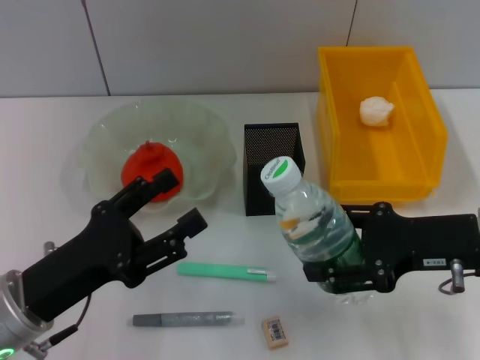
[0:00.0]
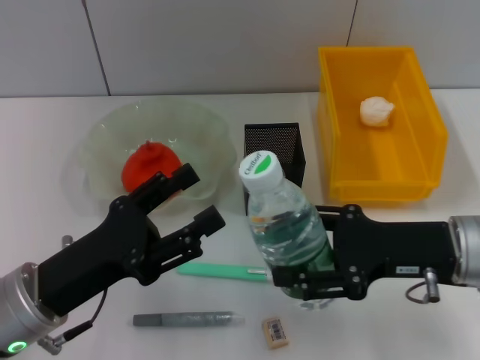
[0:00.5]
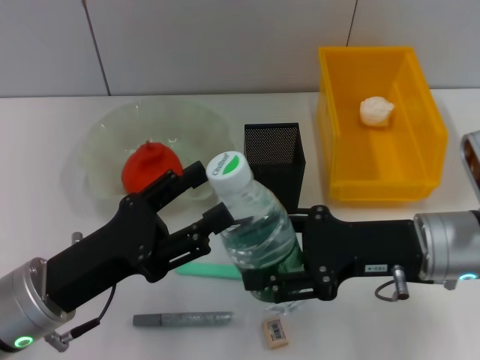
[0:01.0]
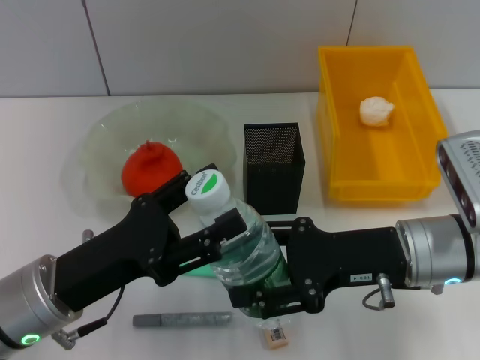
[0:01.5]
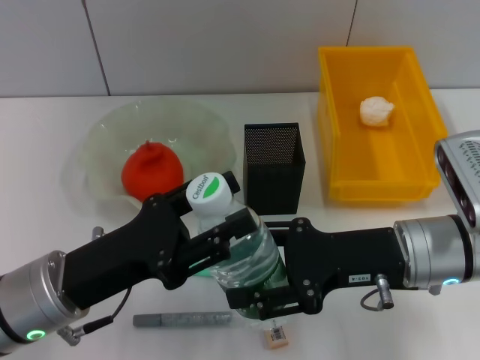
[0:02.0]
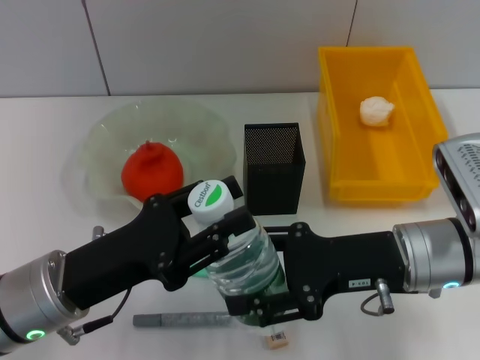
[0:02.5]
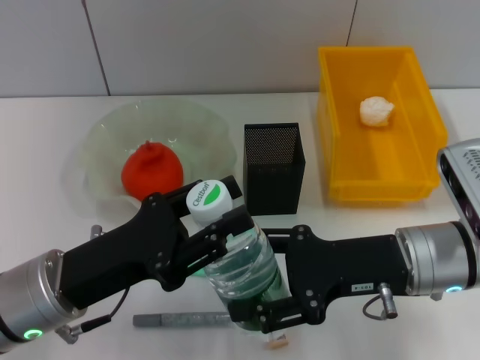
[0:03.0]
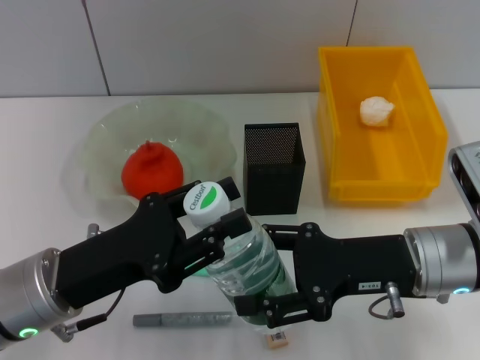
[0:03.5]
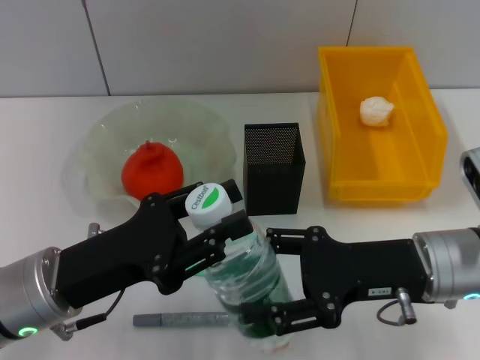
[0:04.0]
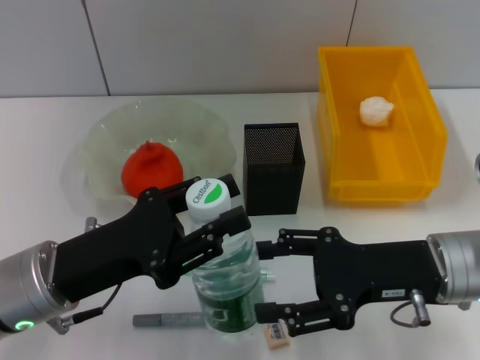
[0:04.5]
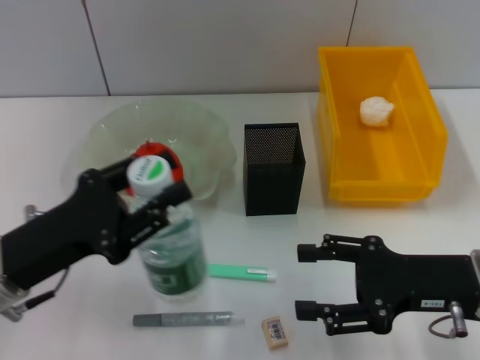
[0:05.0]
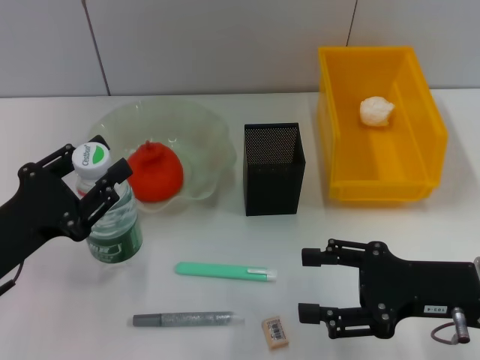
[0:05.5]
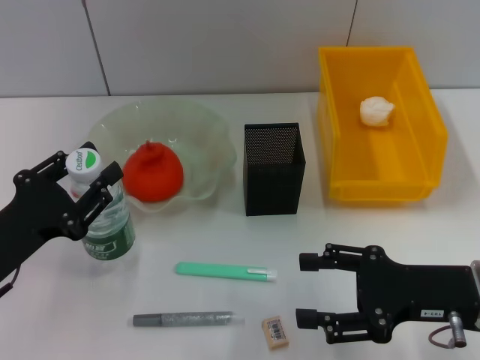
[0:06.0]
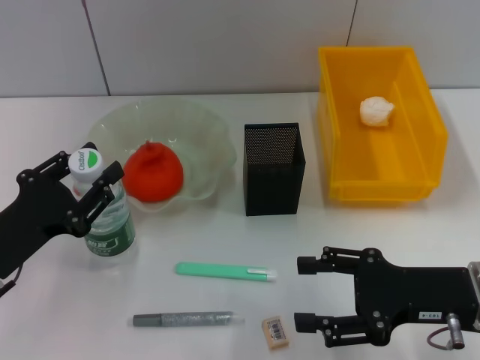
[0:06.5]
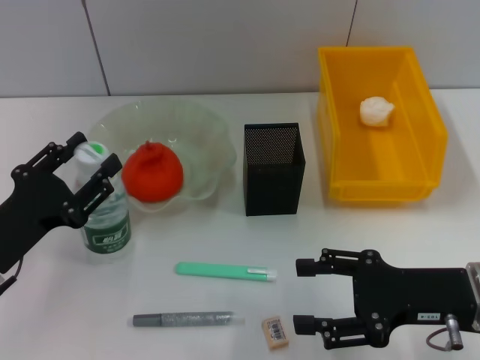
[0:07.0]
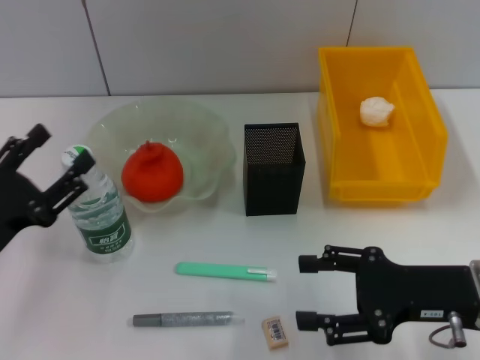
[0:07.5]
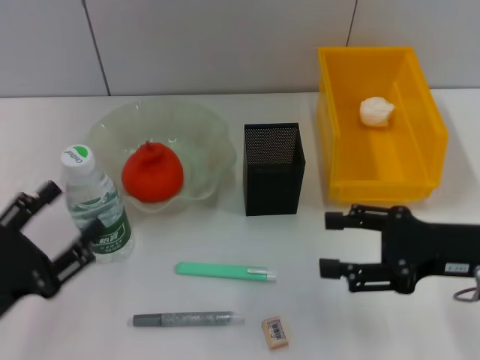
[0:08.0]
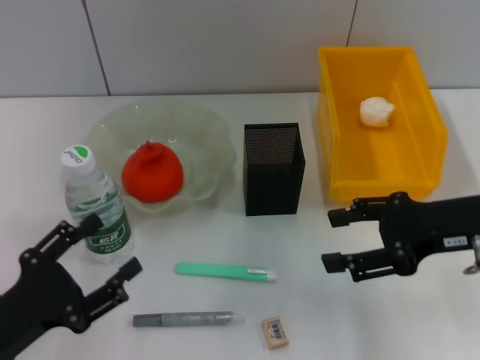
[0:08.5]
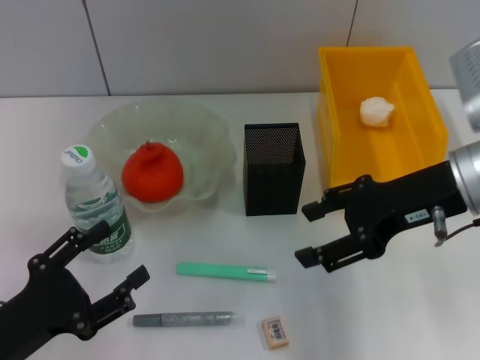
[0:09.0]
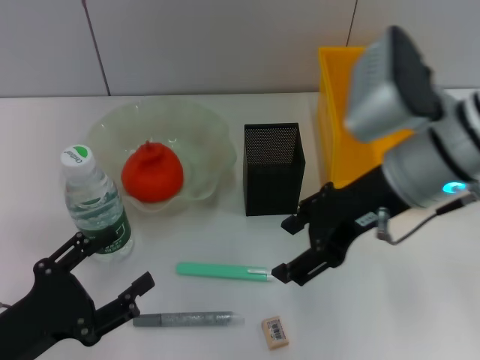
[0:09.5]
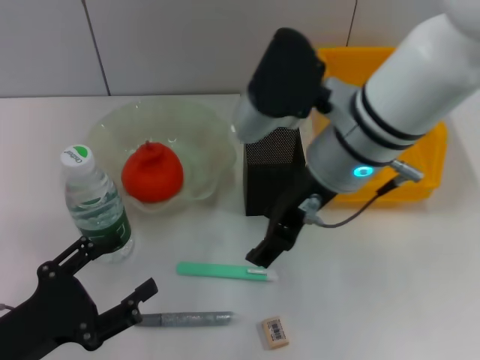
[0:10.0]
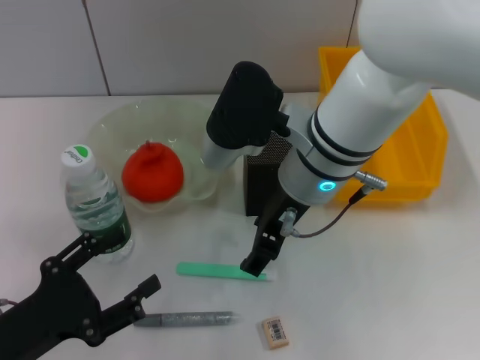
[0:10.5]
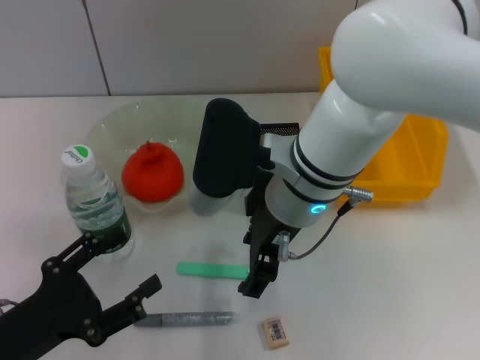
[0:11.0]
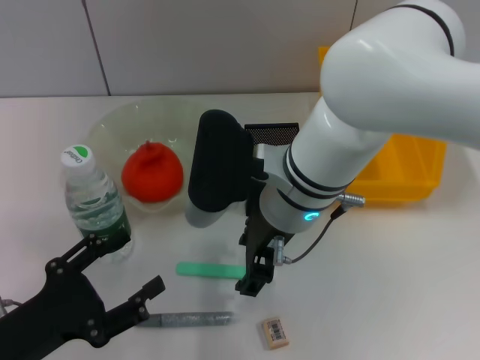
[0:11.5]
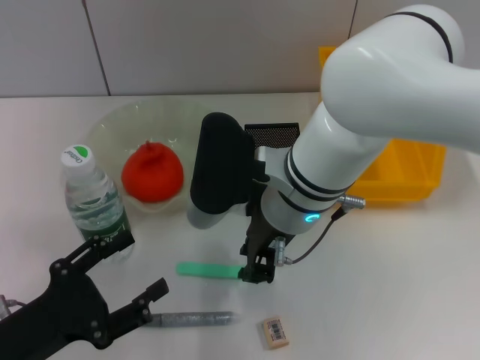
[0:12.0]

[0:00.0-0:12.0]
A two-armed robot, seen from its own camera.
Step, 0:00.0 to 0:04.5: Pass the water bottle from the right hand to the left hand.
Step, 0:05.0 to 0:07.5: Place the water bottle on the table with the left hand.
0:00.0 to 0:02.0: The right gripper travels to the left by about 5 cm.
0:02.0 to 0:04.0: The left gripper closes.
0:04.0 to 0:06.0: The left gripper moves to the left, approximately 10 cm; the right gripper shifts by about 5 cm.
0:06.0 to 0:08.0: The left gripper is displaced backward by some 5 cm, and opens up.
0:08.0 to 0:10.0: The right gripper goes some 20 cm to the left and upward.
0:10.0 to 0:12.0: The right gripper moves downward, approximately 5 cm, and closes its fingers.

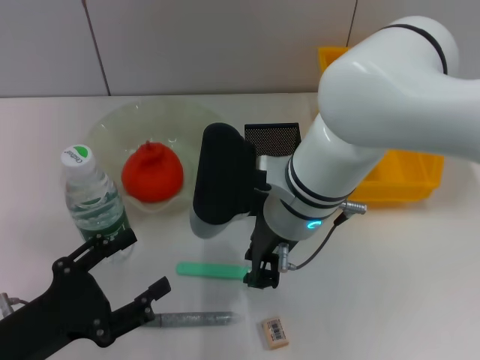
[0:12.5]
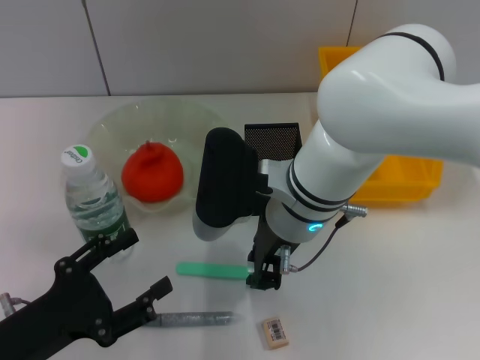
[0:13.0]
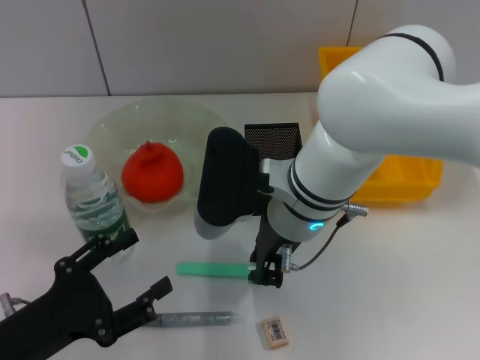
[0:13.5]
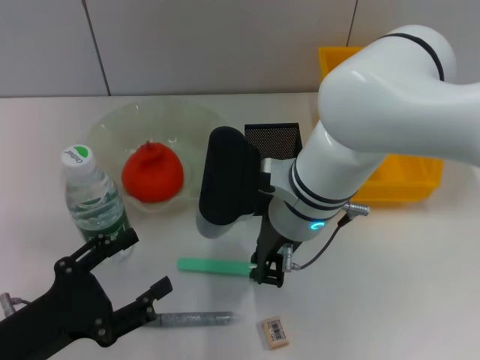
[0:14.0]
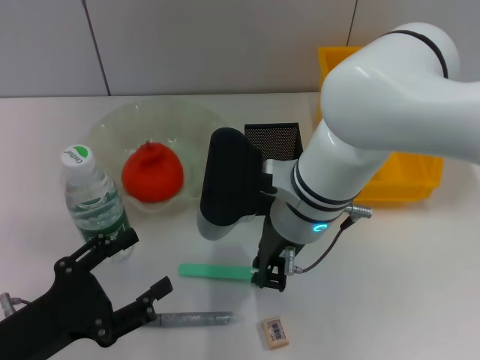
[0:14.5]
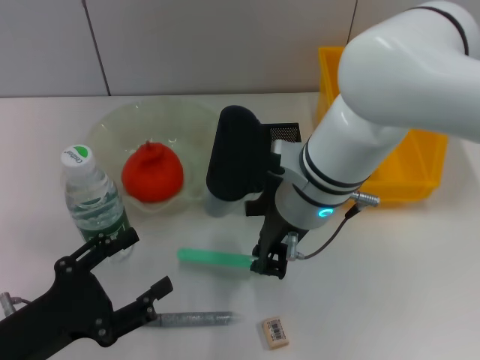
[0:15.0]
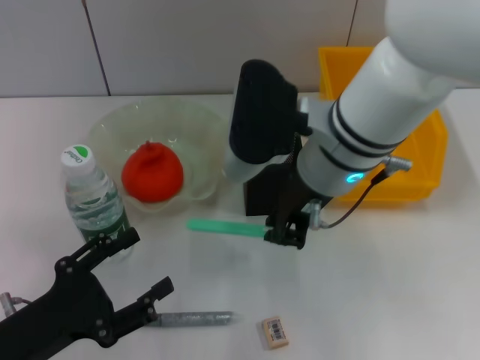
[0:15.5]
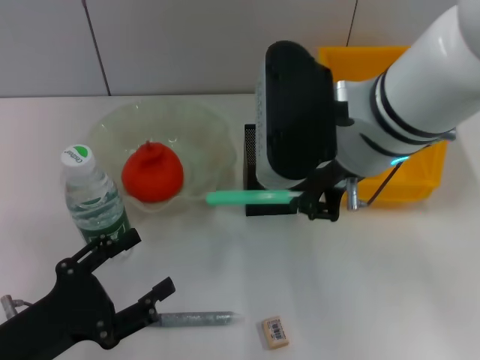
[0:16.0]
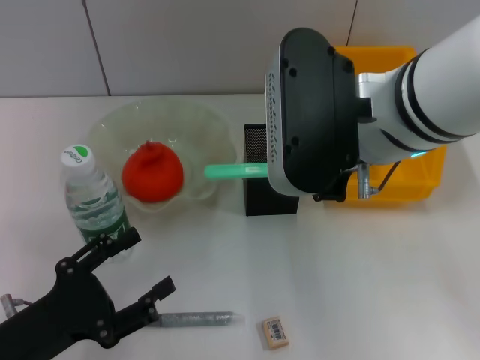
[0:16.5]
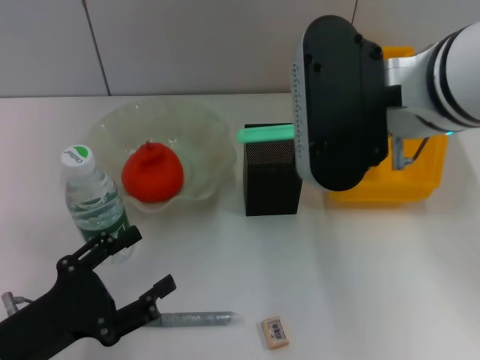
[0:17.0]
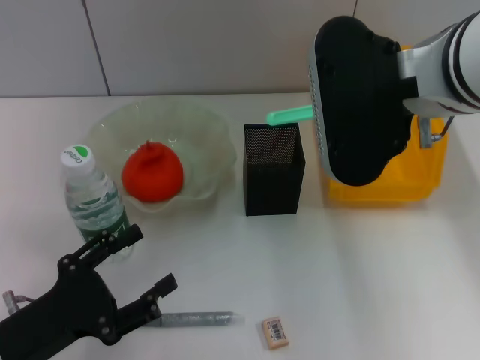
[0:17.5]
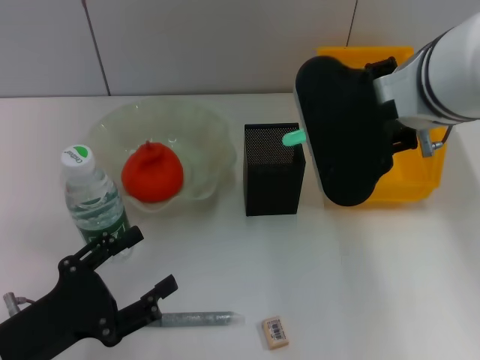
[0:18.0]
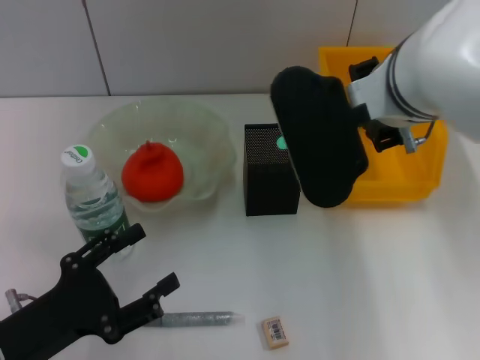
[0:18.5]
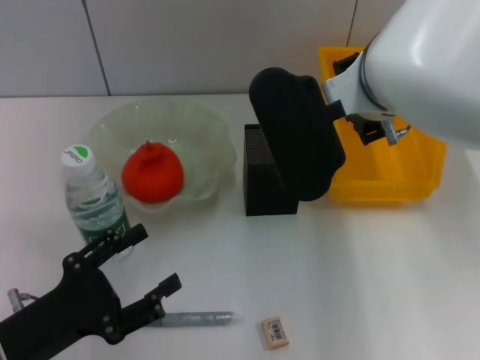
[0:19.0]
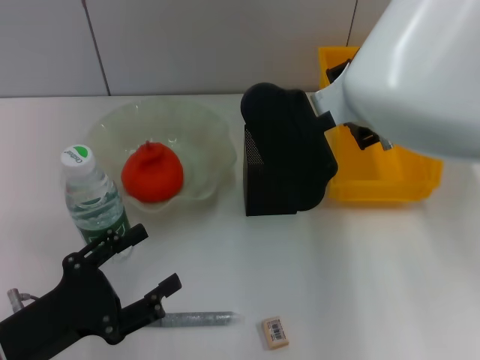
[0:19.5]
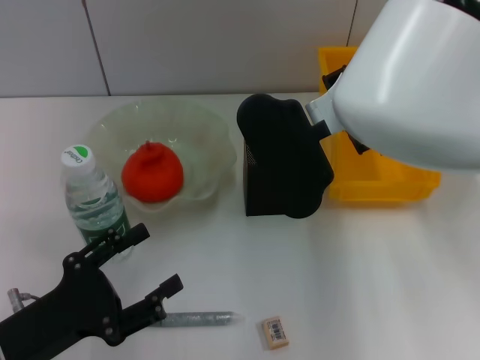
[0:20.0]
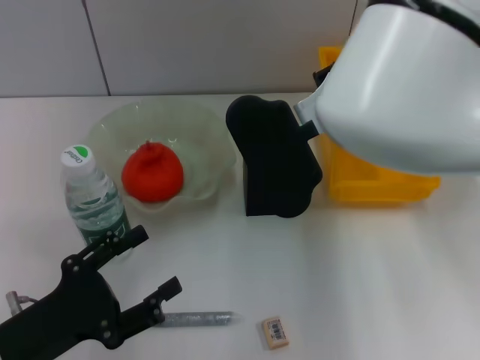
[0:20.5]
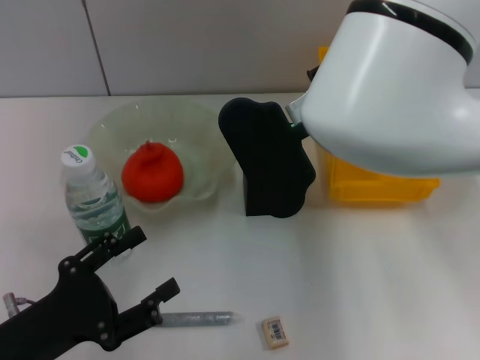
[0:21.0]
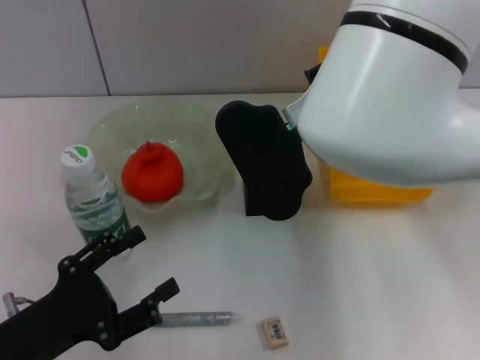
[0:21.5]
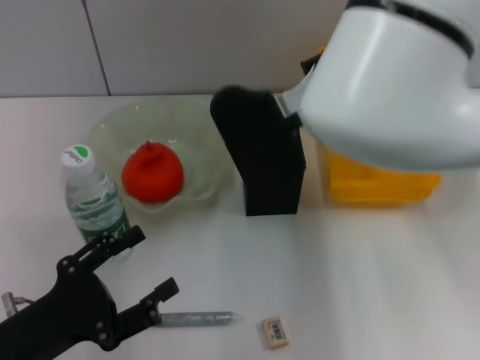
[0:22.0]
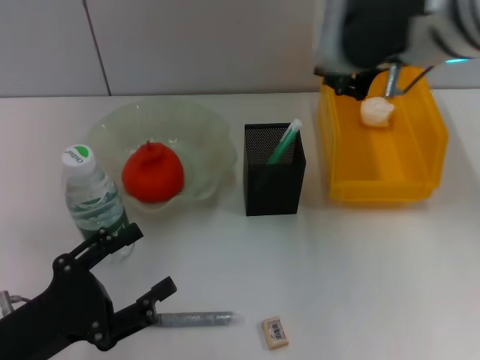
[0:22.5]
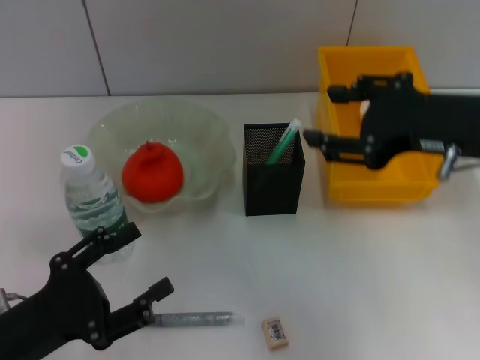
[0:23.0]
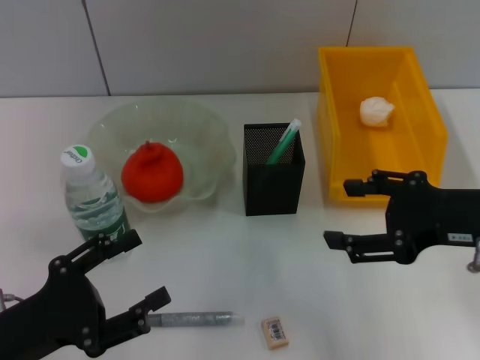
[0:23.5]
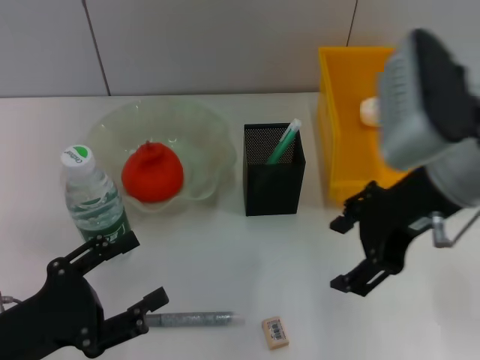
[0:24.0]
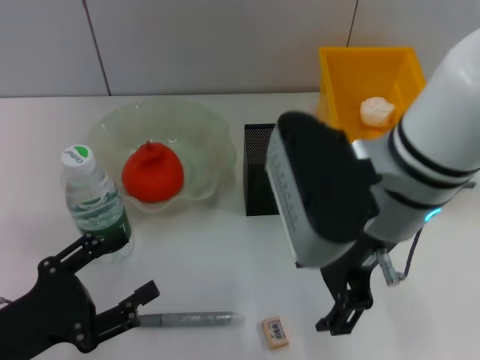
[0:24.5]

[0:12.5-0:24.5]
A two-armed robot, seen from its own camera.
Step, 0:14.0 to 0:22.0: Place the blue utility knife into the pen holder with the right hand.
0:12.5 to 0:14.5: The two grippers keep their place.
0:14.5 to 0:16.5: The right gripper moves upward, about 10 cm.
0:18.5 to 0:20.5: There are only small adjustments of the grippers.
0:20.5 to 0:22.5: The right gripper heads to the right and upward, covering approximately 10 cm.
0:22.5 to 0:24.5: The right gripper goes approximately 10 cm downward and backward, reaches about 10 cm to the right, then returns, and opens.

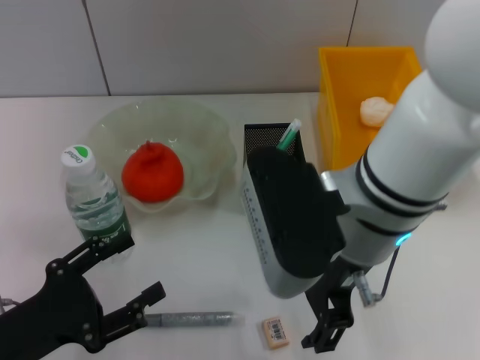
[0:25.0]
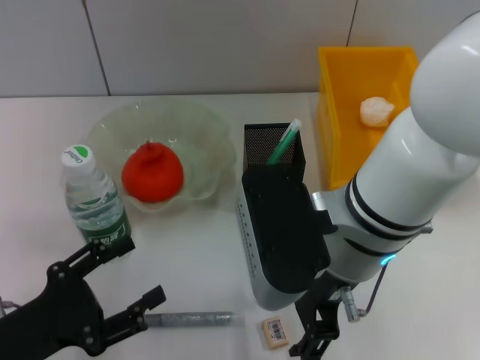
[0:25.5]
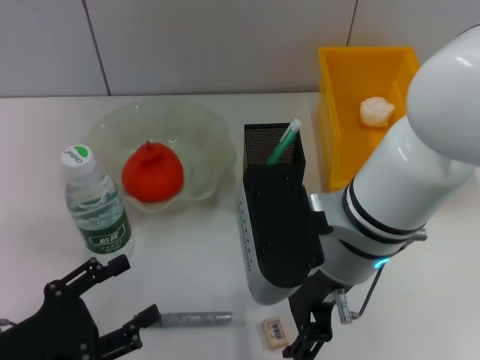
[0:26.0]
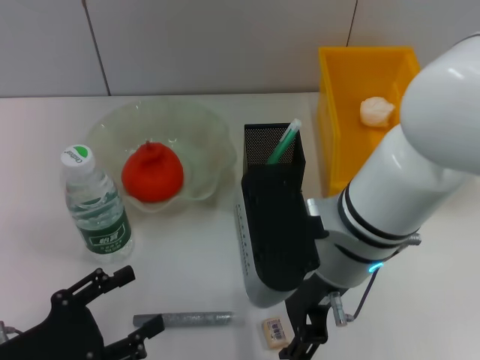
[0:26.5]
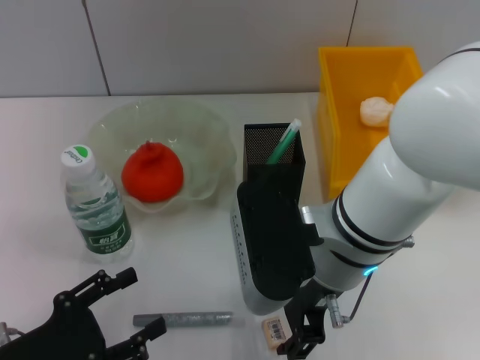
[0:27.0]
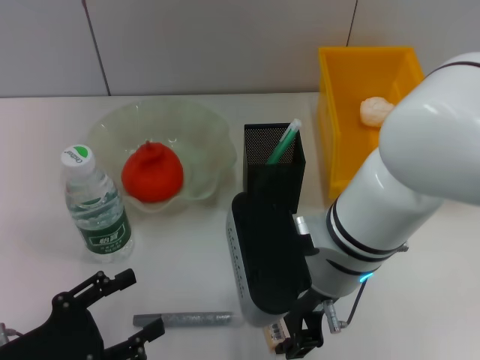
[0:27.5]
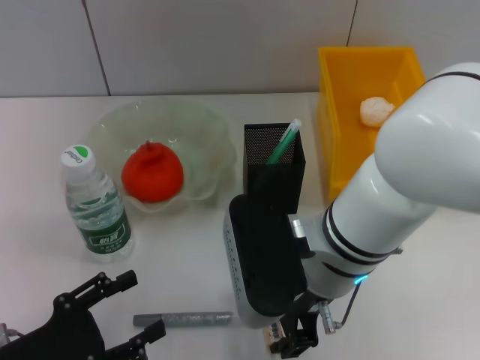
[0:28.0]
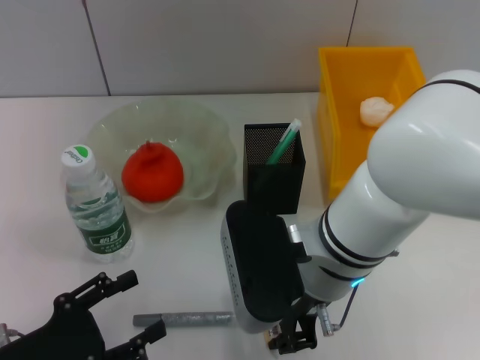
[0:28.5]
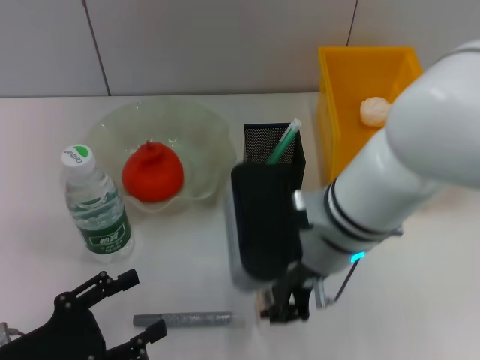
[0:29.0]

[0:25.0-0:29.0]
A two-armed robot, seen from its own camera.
Step, 0:25.0 to 0:28.0: Grab the eraser with the right hand.
0:25.0 to 0:27.0: The right gripper shifts by about 5 cm.
0:27.0 to 0:29.0: The right gripper closes its fingers.
